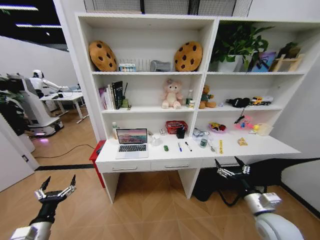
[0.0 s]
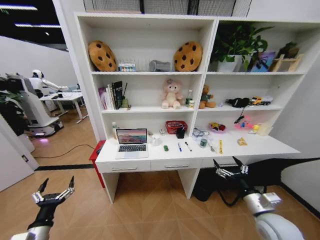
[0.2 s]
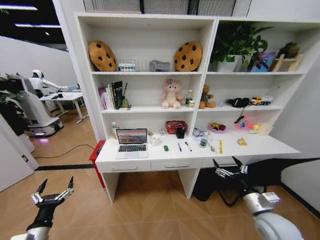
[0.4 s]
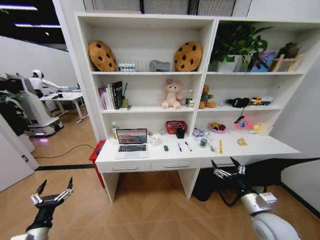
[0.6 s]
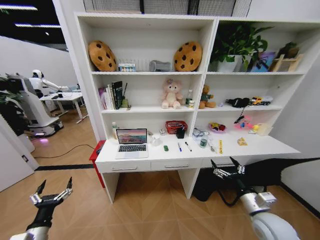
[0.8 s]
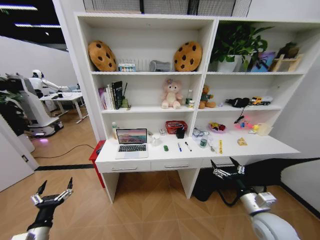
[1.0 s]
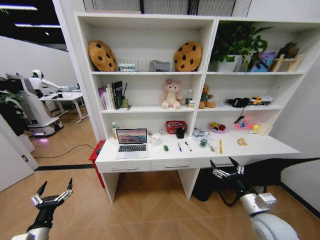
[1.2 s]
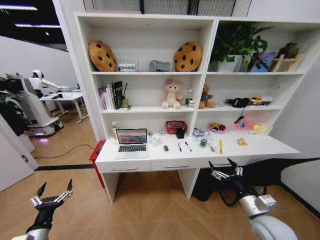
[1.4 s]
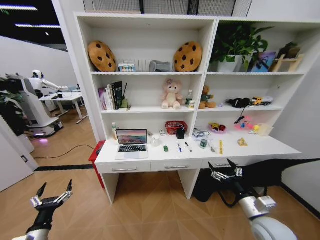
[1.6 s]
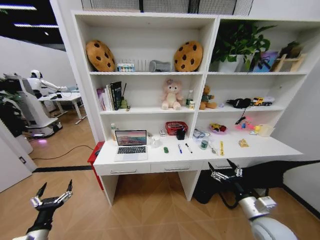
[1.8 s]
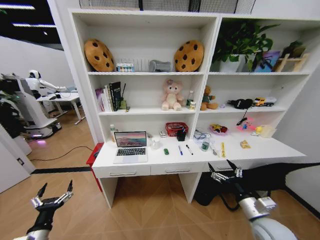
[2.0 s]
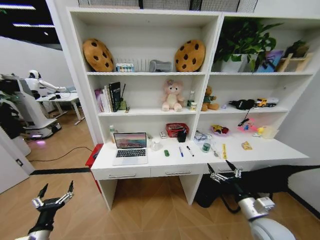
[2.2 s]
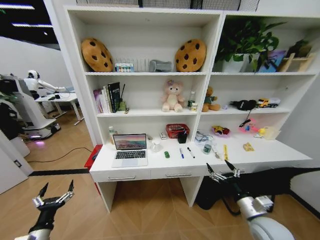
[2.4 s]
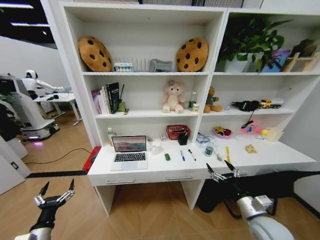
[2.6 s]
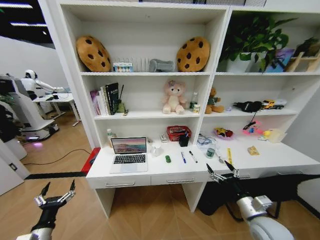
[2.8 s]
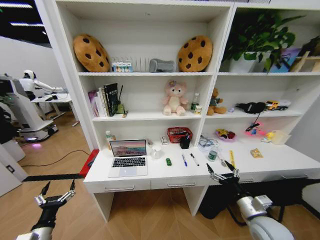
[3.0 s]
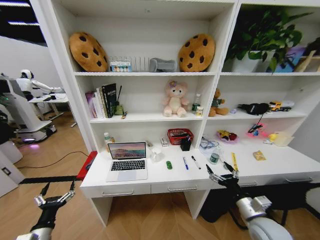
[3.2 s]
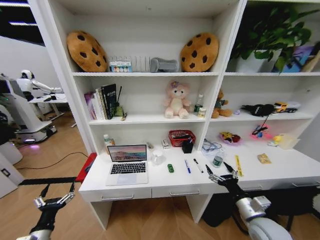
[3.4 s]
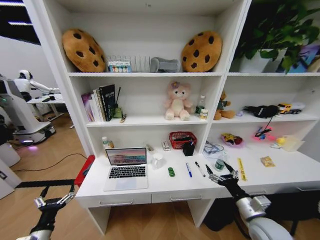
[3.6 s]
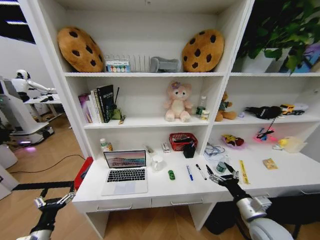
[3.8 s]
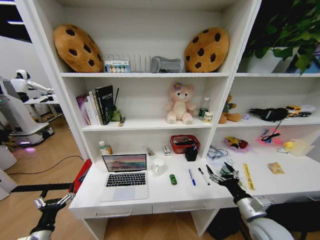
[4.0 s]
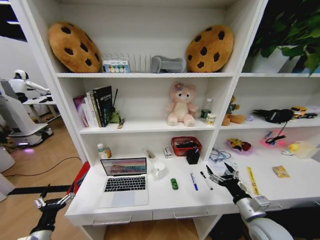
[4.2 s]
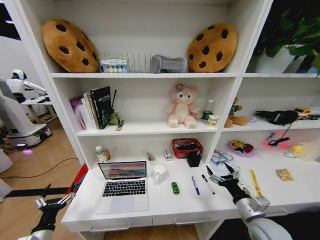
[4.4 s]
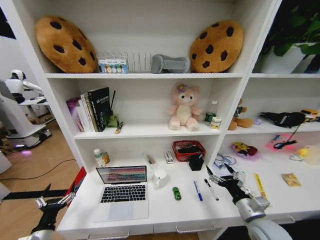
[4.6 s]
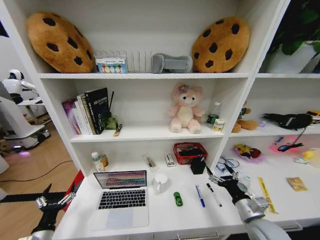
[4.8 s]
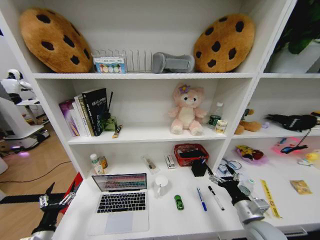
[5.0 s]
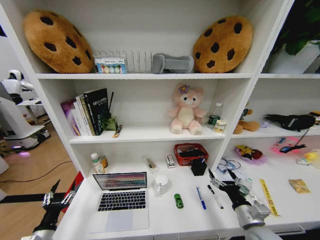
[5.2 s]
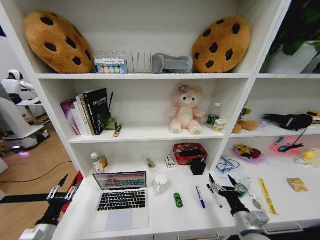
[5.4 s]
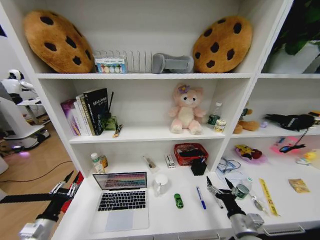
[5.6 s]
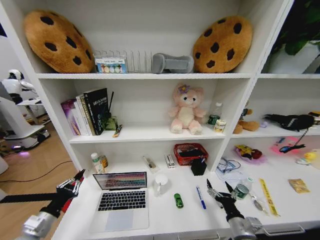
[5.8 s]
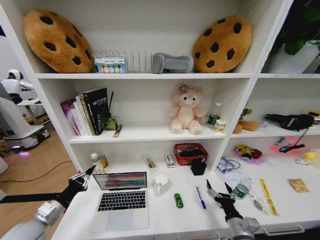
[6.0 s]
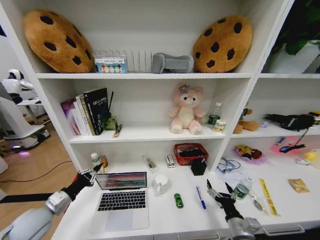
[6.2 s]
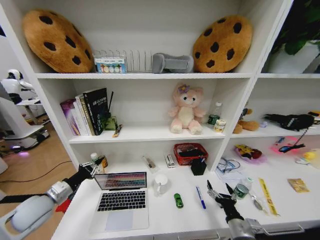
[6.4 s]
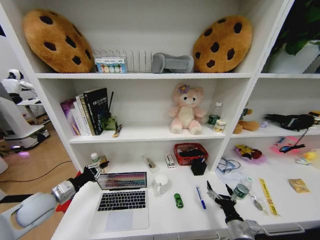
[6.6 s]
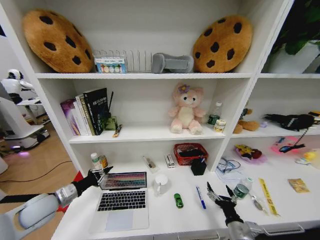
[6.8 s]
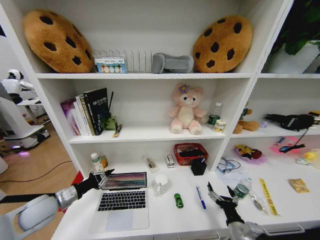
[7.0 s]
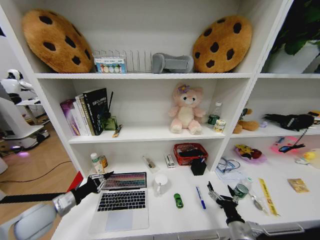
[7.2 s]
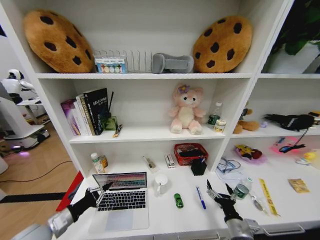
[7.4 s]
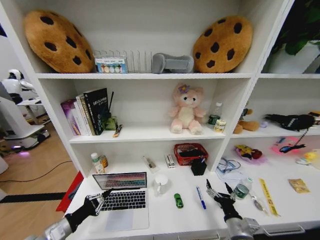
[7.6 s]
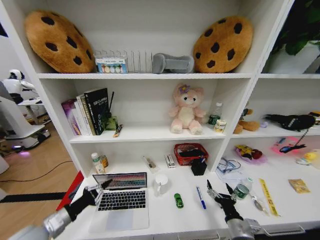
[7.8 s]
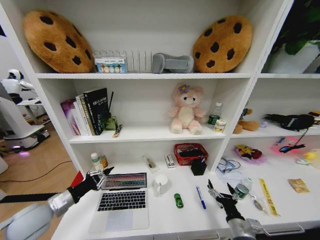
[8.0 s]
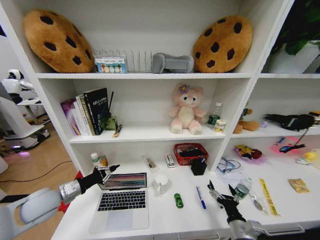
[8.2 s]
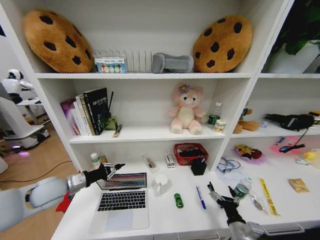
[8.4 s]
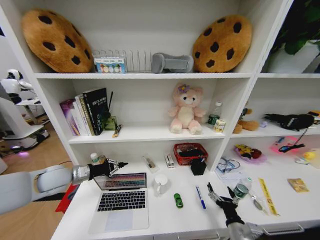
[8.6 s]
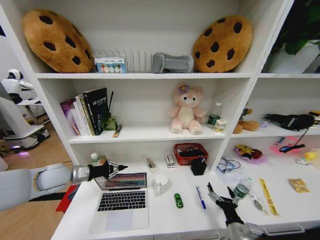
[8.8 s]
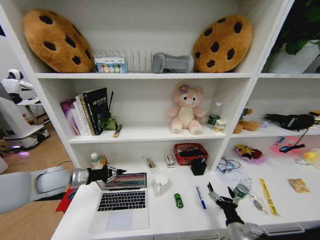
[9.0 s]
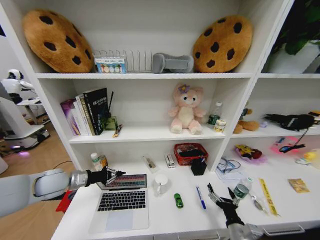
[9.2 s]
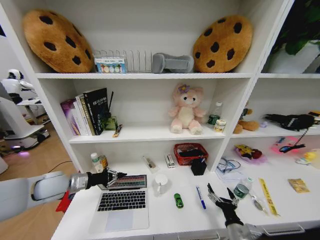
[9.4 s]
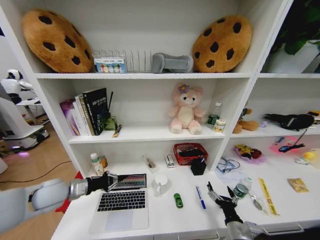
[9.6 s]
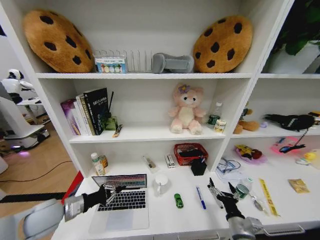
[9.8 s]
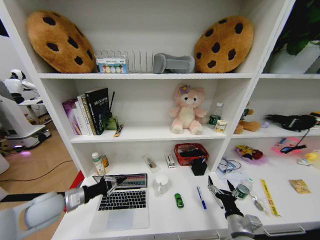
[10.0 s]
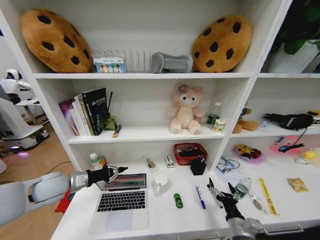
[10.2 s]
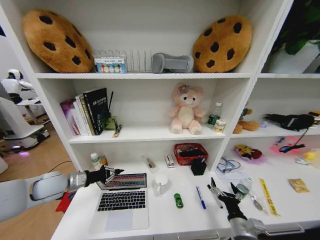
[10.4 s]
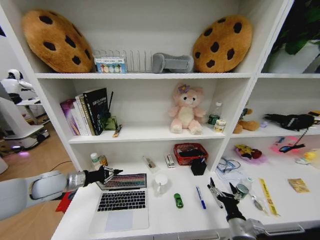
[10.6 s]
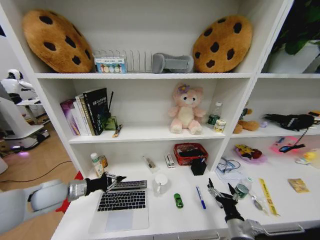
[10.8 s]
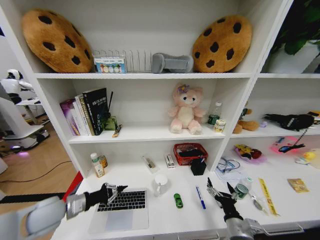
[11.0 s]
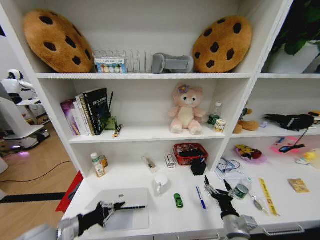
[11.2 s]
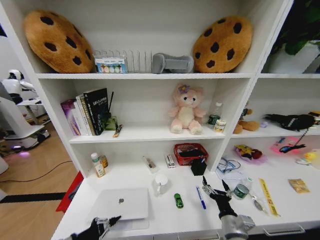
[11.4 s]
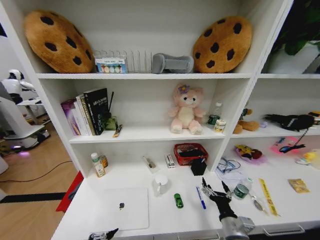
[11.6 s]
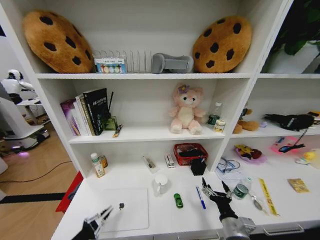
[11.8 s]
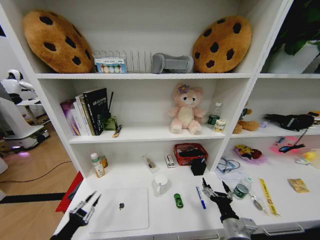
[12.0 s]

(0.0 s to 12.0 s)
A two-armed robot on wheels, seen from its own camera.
Task of the whole recording: Organize the objects on the table.
4.4 s - 6.0 s: The left gripper heads upward and forward, covering roughly 10 cm, and closes; the right gripper goes some 10 cm downward.
6.0 s - 7.6 s: The left gripper reaches some 10 cm forward, then returns.
7.6 s - 9.0 s: The left gripper travels forward and upward by some 20 cm.
9.0 s - 10.4 s: The left gripper reaches some 10 cm backward, then returns.
10.4 s - 12.0 s: The left gripper is displaced backward and downward by about 25 cm.

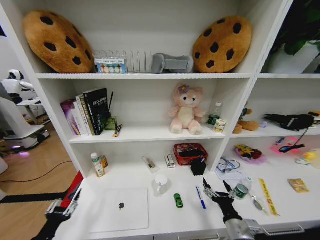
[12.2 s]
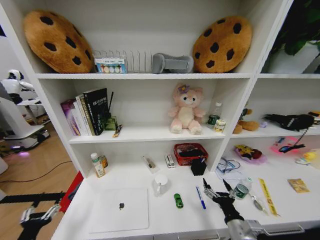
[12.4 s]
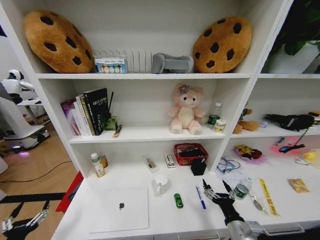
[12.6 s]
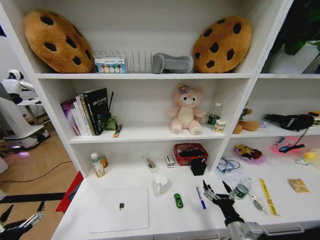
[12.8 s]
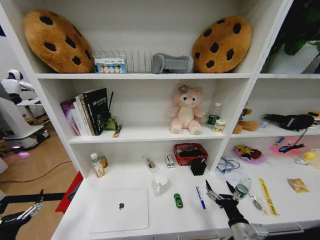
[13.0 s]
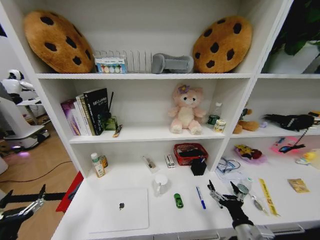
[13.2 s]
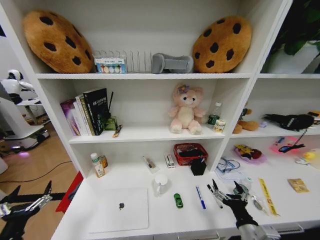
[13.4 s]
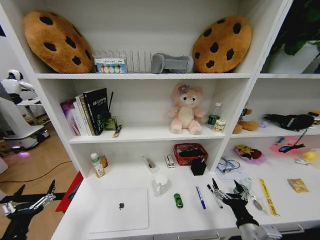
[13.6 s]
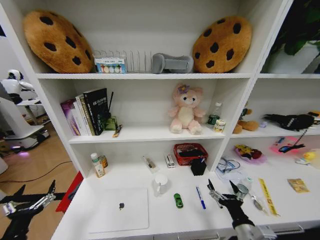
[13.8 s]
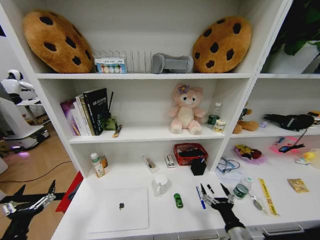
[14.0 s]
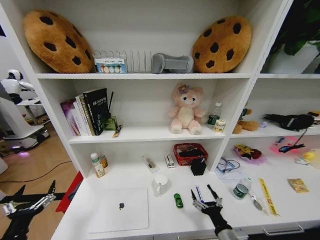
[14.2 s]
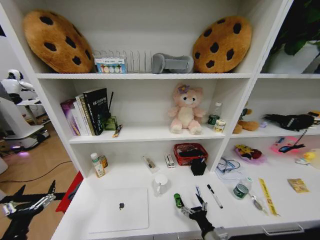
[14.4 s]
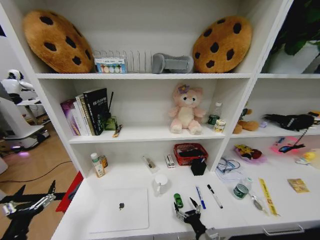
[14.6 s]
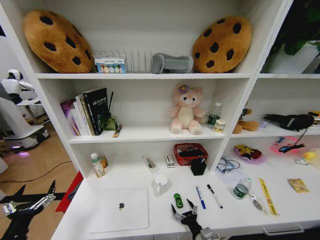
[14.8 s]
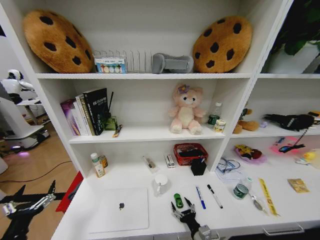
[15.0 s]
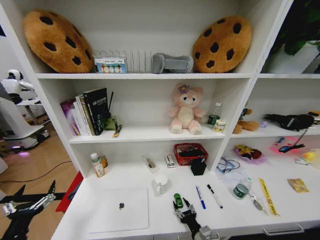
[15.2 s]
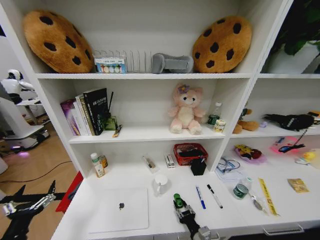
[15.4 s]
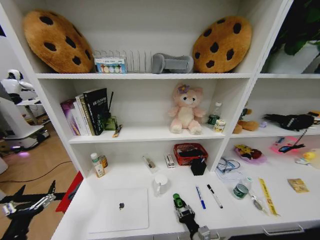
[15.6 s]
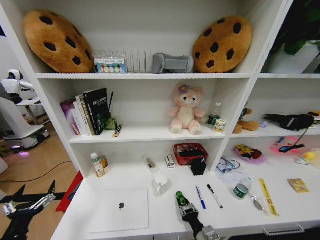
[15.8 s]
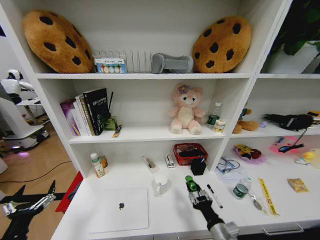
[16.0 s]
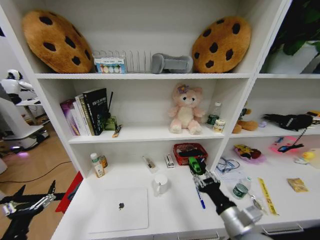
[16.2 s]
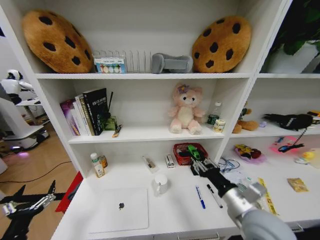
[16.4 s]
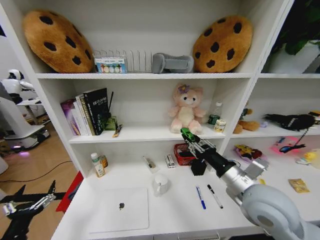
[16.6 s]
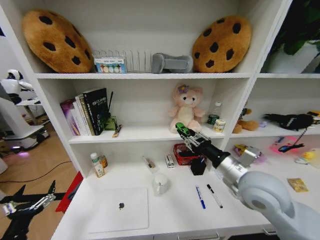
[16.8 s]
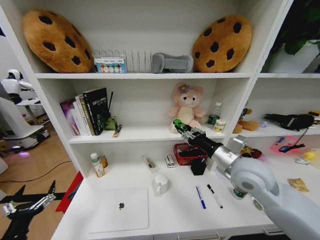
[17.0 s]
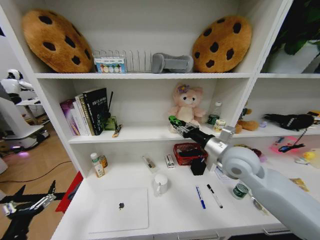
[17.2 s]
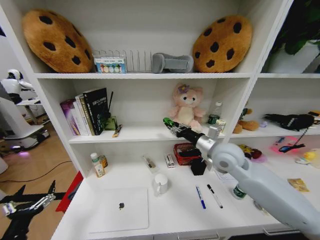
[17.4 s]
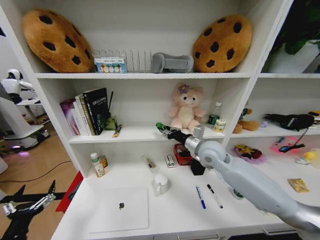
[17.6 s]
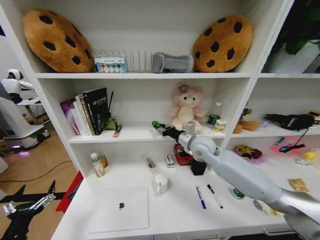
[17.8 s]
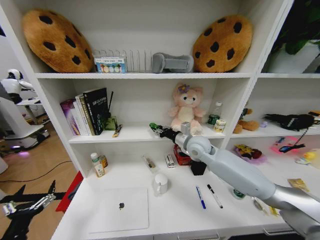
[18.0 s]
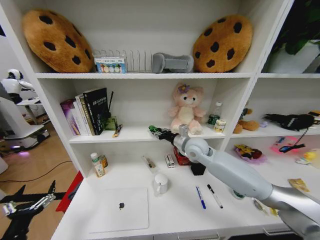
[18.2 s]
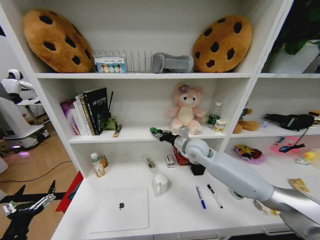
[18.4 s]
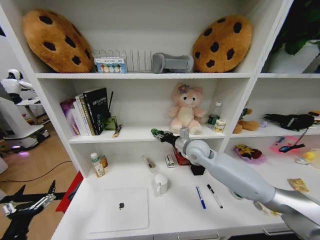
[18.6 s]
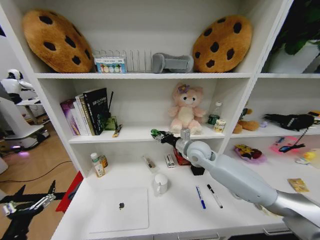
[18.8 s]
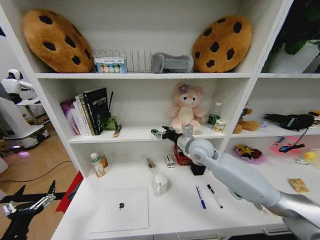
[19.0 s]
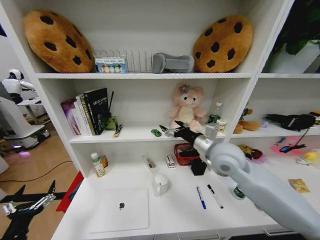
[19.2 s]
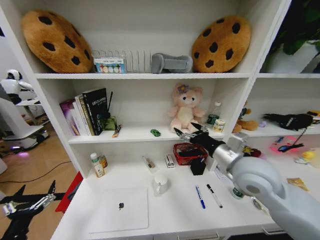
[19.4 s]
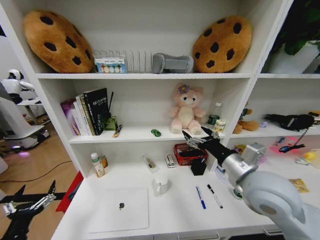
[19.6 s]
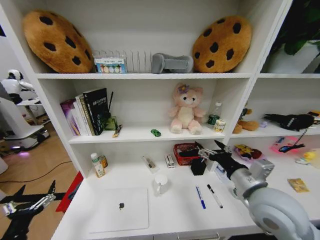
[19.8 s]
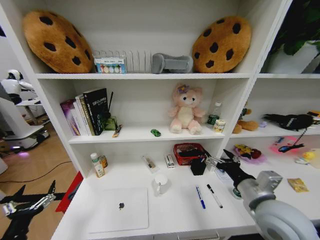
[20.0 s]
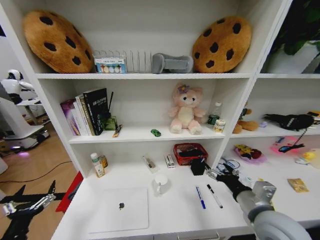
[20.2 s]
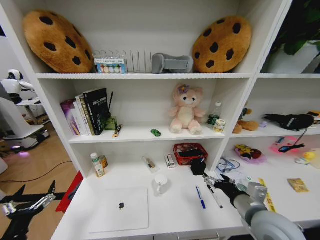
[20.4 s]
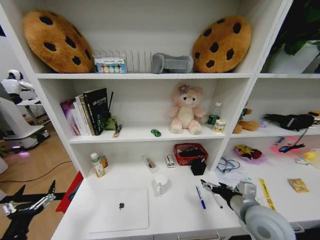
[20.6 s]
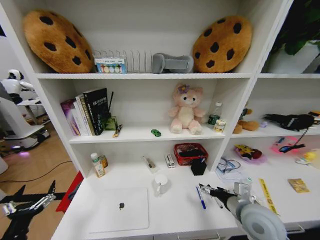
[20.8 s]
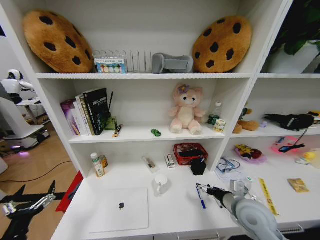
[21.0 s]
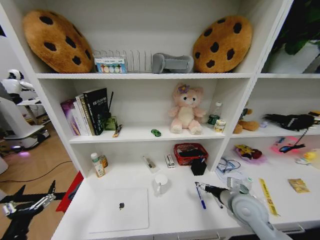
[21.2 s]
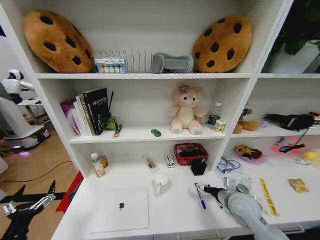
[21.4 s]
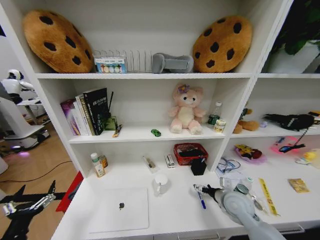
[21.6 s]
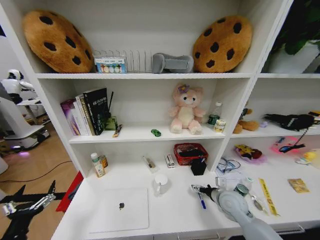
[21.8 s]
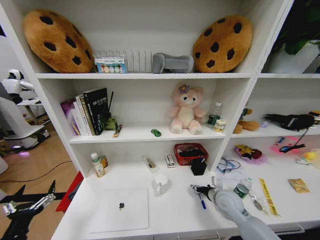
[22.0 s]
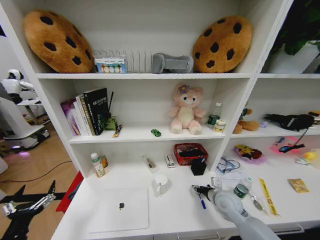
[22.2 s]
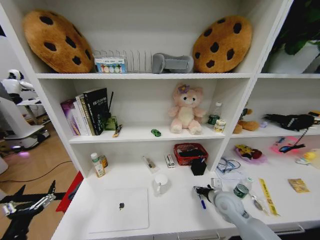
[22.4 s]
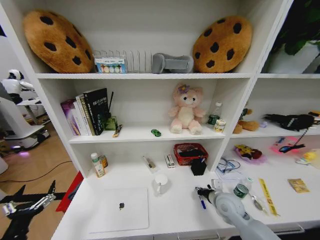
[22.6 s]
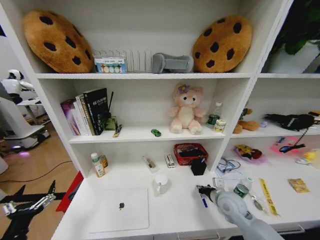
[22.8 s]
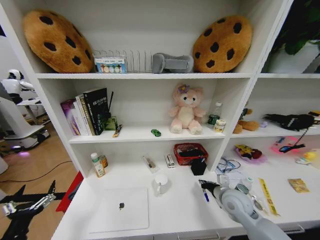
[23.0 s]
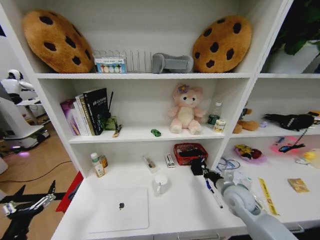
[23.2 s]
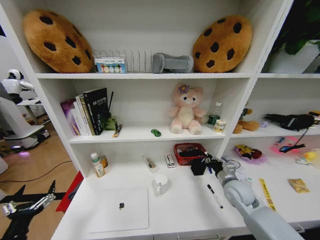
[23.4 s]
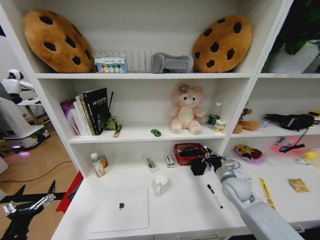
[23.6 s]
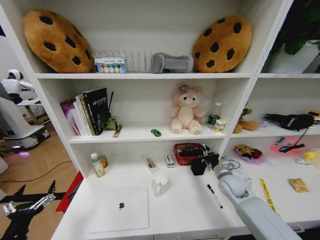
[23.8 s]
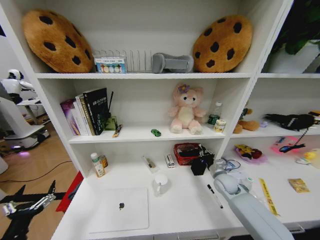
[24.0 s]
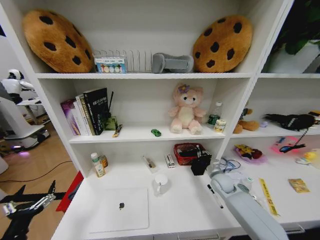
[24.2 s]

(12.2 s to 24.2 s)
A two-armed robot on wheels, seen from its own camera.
Task of the whole recording: Organize the objects on the table.
12.2 s - 13.8 s: The left gripper opens.
13.8 s - 15.2 s: The right gripper travels downward and to the left by some 15 cm.
15.2 s - 16.6 s: The right gripper goes roughly 30 cm upward, and closes its fingers.
16.6 s - 18.2 s: The right gripper is displaced forward and to the left by approximately 25 cm.
18.2 s - 19.8 s: The right gripper shifts approximately 25 cm backward and to the right, and opens.
19.8 s - 21.2 s: The right gripper heads downward, covering roughly 15 cm.
21.2 s - 22.6 s: The right gripper shifts about 5 cm downward, and closes up.
22.6 s - 24.2 s: The right gripper travels forward by roughly 10 cm.
